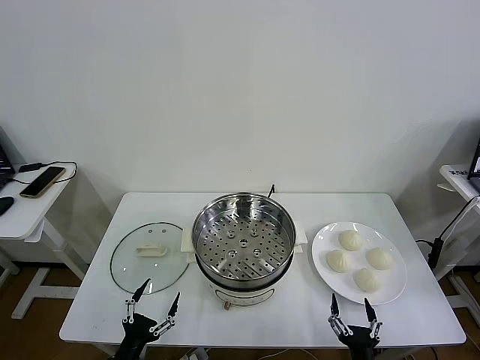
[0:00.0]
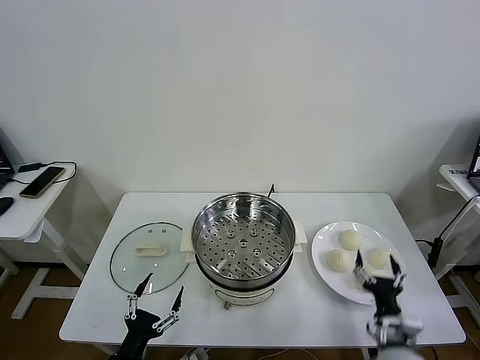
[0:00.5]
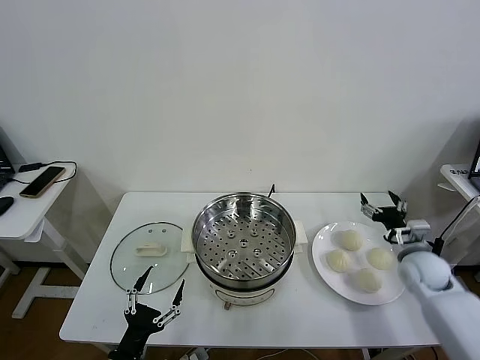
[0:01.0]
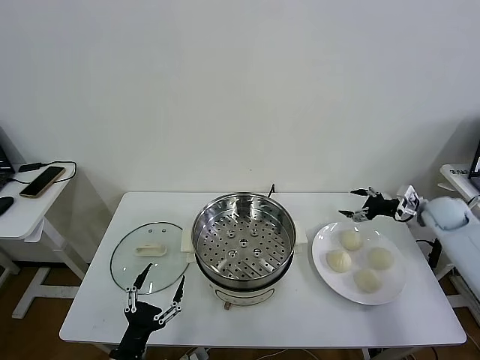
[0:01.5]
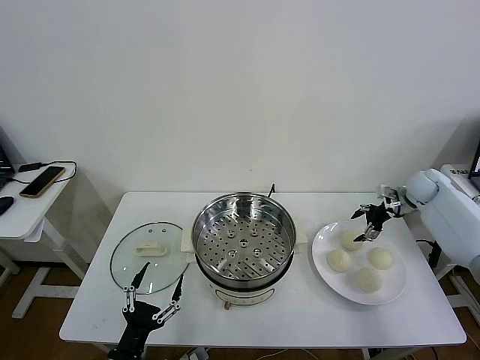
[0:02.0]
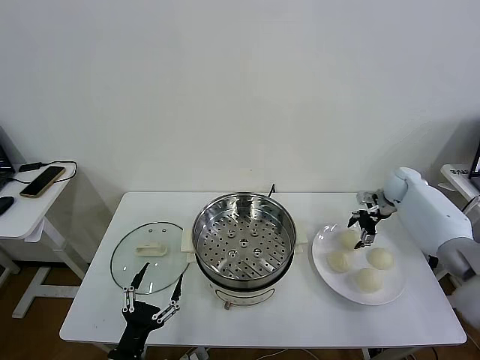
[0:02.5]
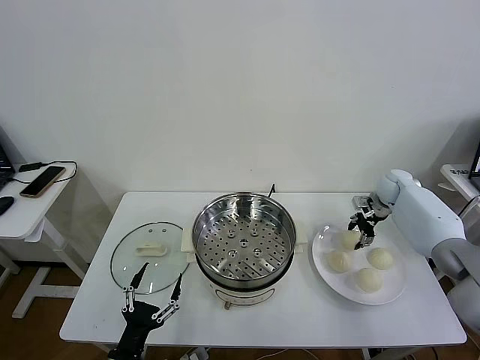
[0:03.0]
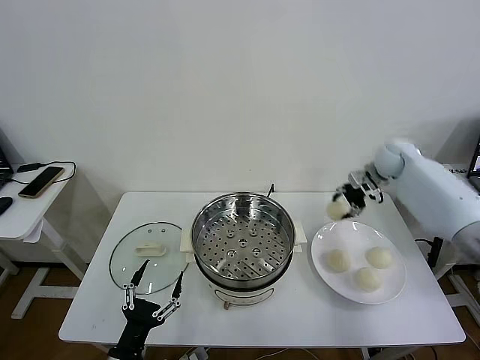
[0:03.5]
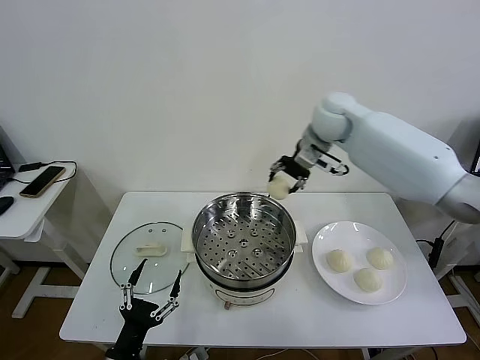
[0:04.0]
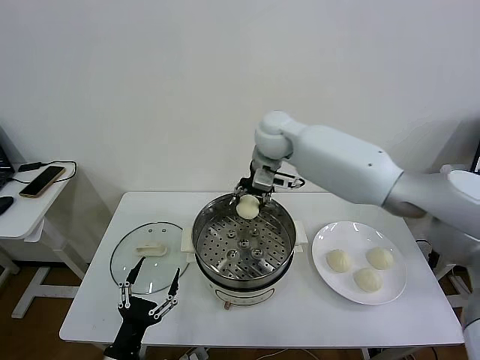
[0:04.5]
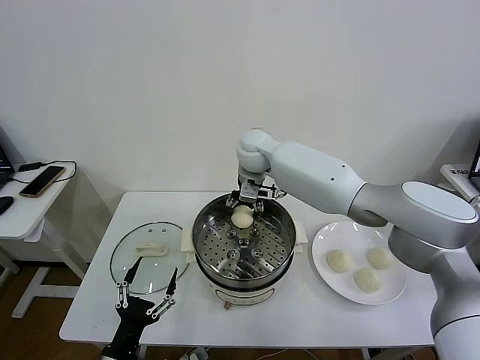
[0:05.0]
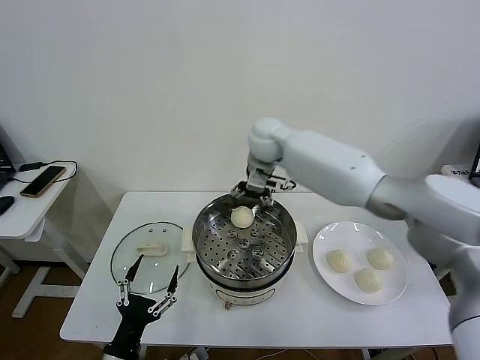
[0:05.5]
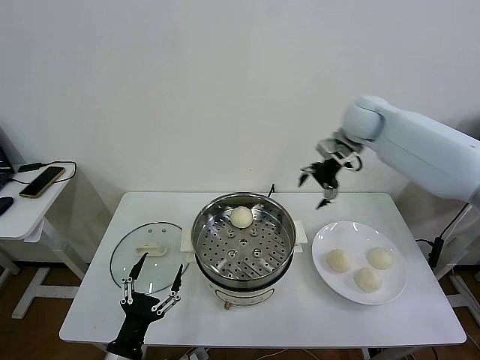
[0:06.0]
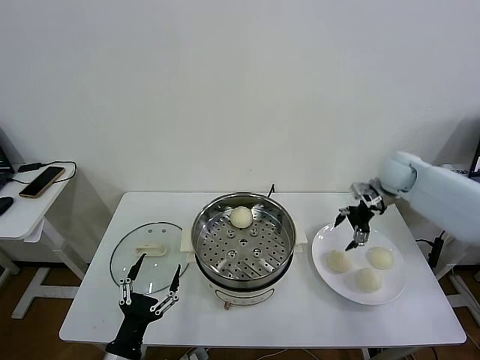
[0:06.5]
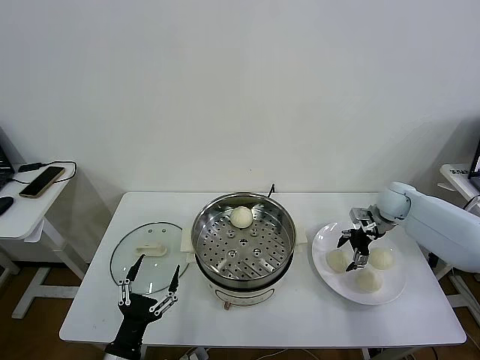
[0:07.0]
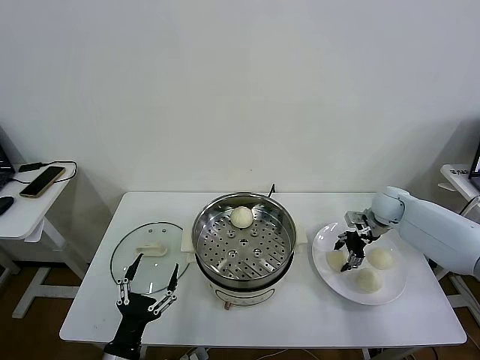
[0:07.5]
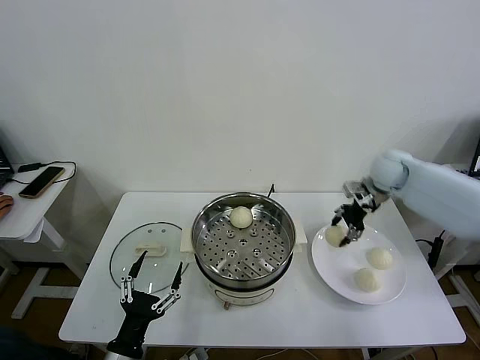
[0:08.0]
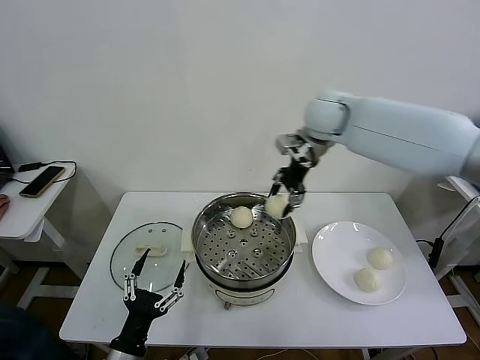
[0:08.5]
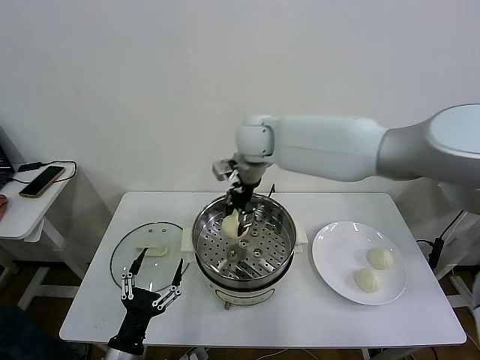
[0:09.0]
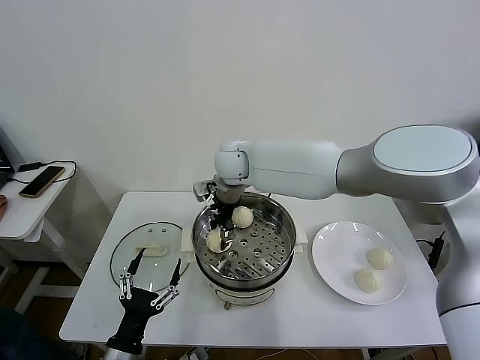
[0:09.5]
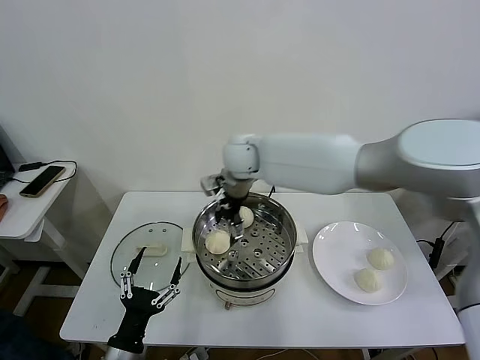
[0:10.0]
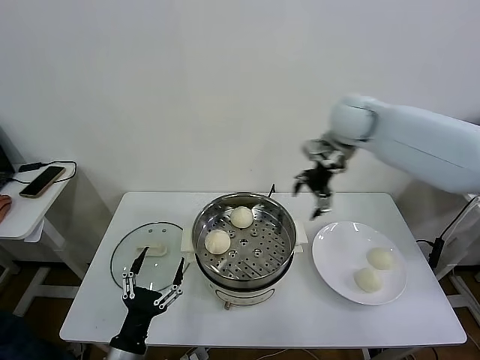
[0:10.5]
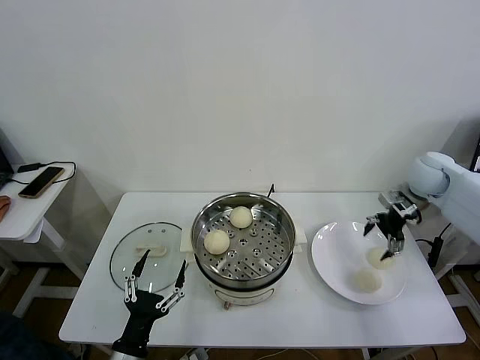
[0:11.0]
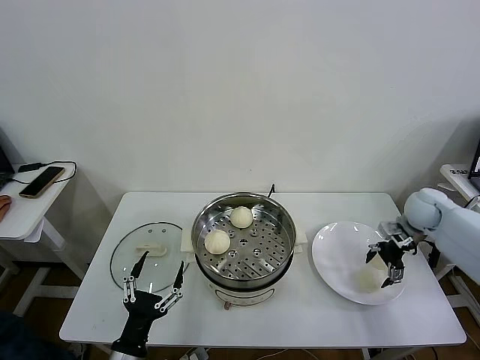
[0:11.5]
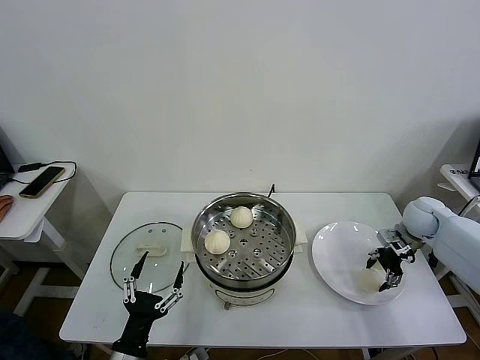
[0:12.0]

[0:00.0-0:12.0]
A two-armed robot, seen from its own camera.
Task of the whole recording: take steamed baozi put them in steamer then cover it.
Step, 0:00.0 to 0:03.0: Grasp the baozi in the plate with right gripper.
Step, 0:03.5 to 0:05.0: Place the baozi on the steamer with right gripper.
Step, 0:05.5 to 0:07.5: Grasp the baozi in the plate with right gripper.
Step, 0:08.0 to 0:09.5: Place the baozi on the steamer with right gripper.
0:02.0 to 0:04.0: The right gripper heads to the left and upward, covering about 35 cm, and closes its fingers.
0:04.0 to 0:06.0: The right gripper goes about 15 cm to the right, and opens.
0:06.0 to 0:08.0: The right gripper reaches some 20 cm downward, then returns, and closes its fingers.
0:08.0 to 0:10.0: The right gripper is displaced to the left by roughly 30 cm, and opens its fingers.
0:10.0 to 0:12.0: The right gripper travels to the right by roughly 40 cm, and closes up.

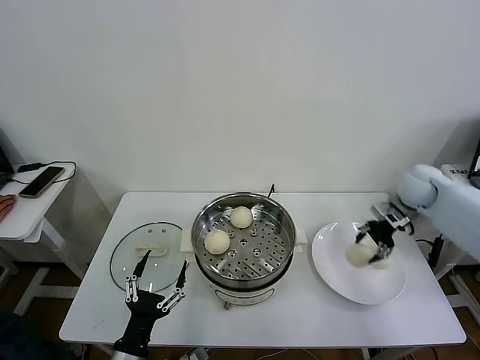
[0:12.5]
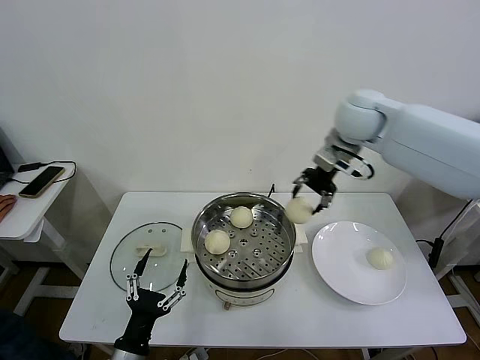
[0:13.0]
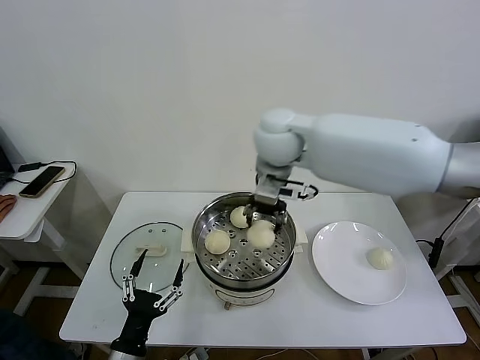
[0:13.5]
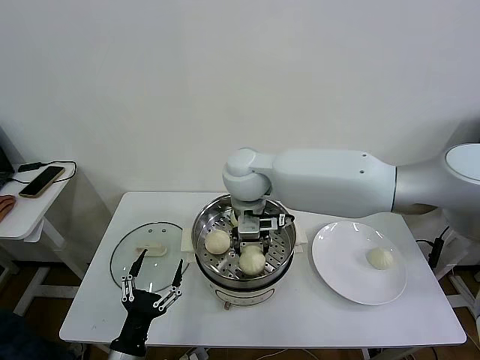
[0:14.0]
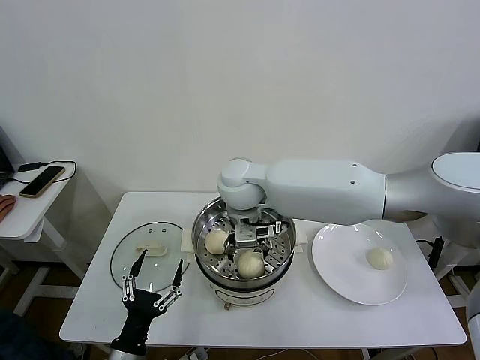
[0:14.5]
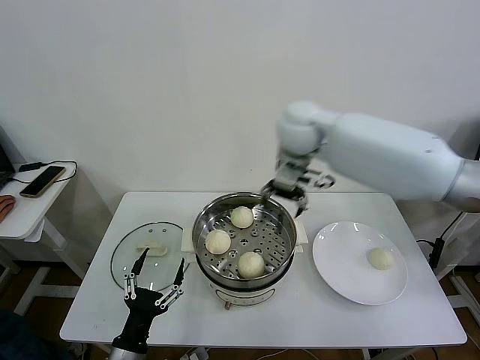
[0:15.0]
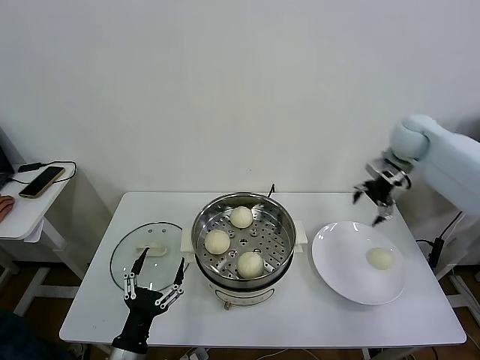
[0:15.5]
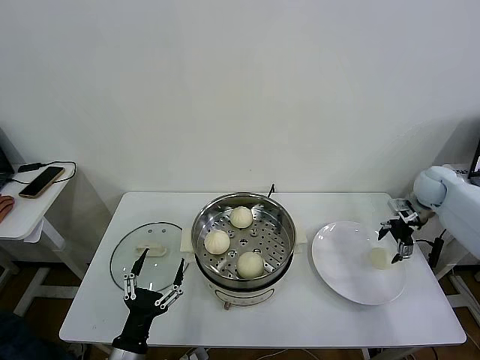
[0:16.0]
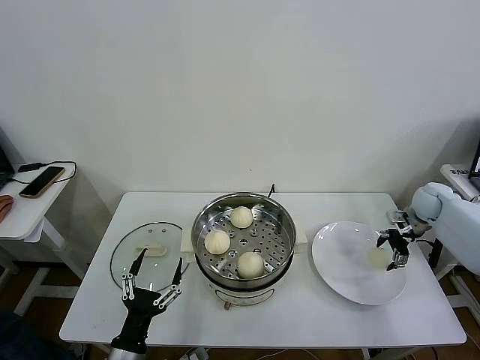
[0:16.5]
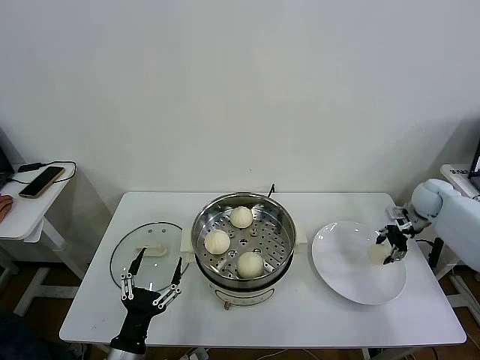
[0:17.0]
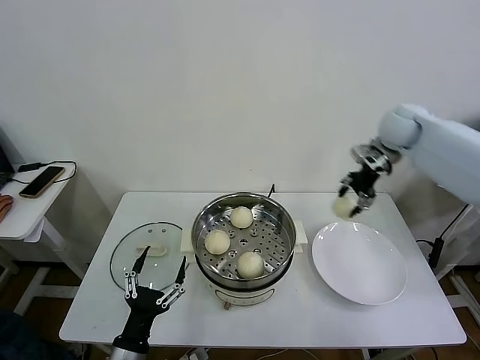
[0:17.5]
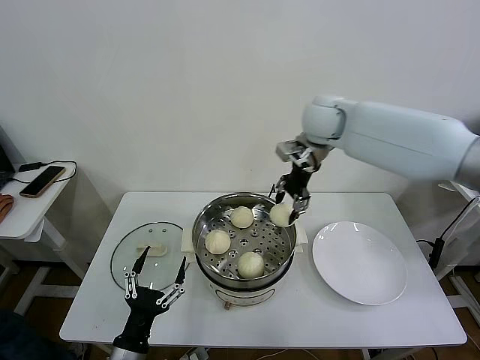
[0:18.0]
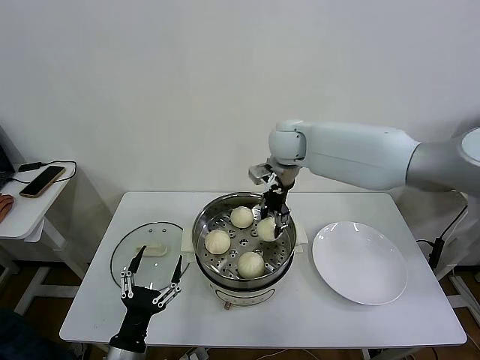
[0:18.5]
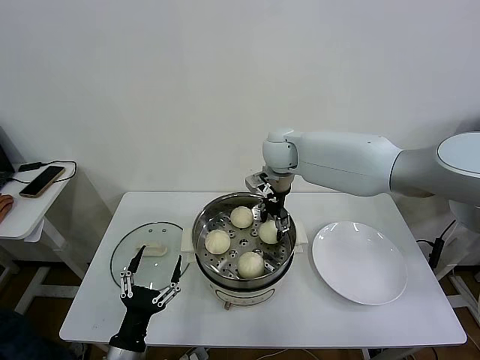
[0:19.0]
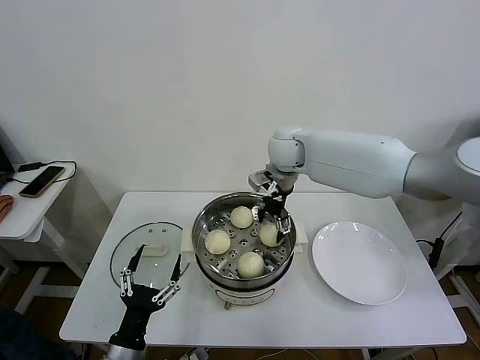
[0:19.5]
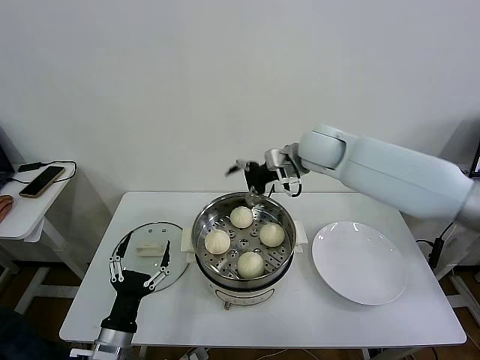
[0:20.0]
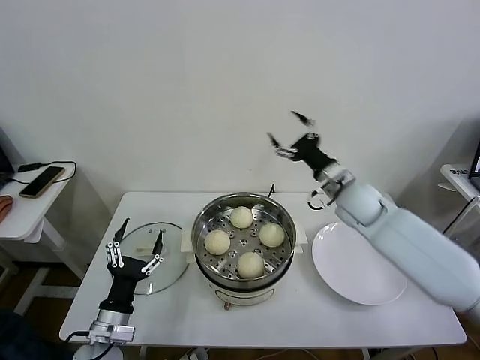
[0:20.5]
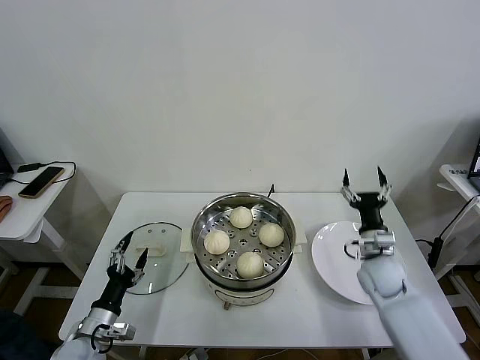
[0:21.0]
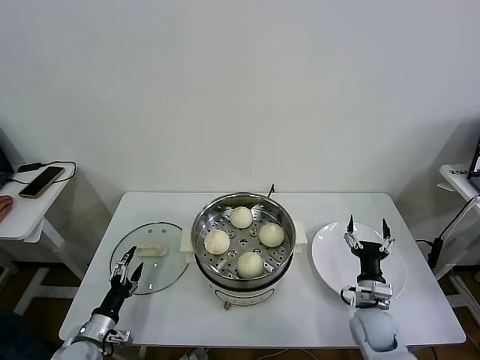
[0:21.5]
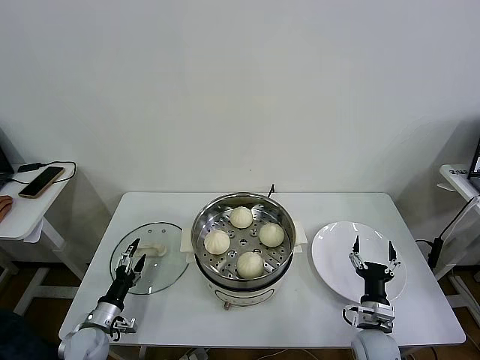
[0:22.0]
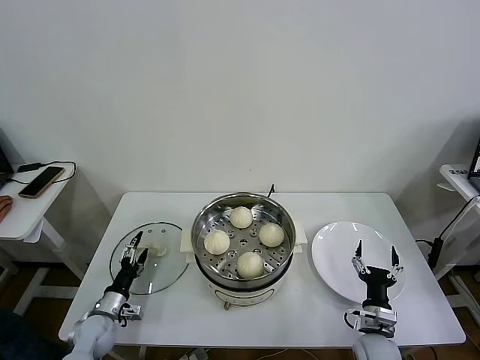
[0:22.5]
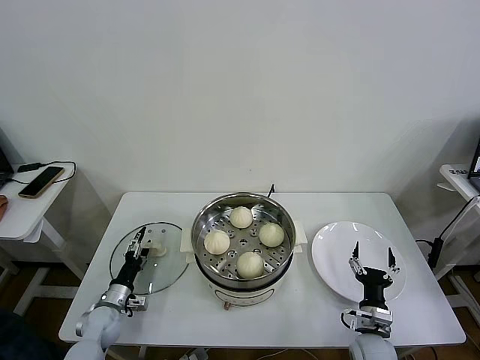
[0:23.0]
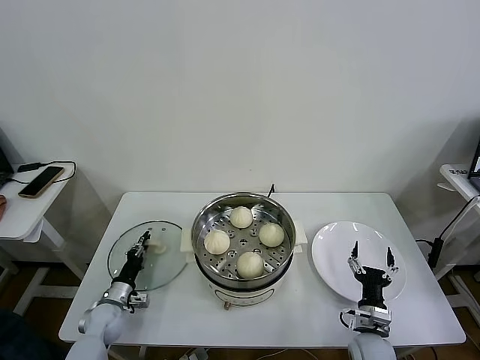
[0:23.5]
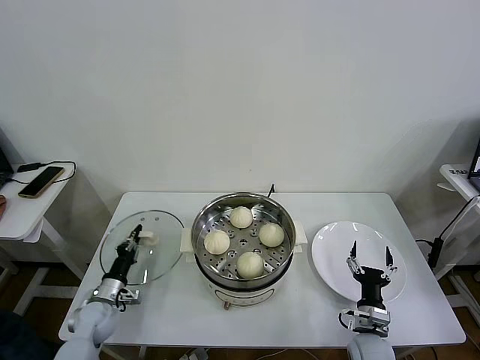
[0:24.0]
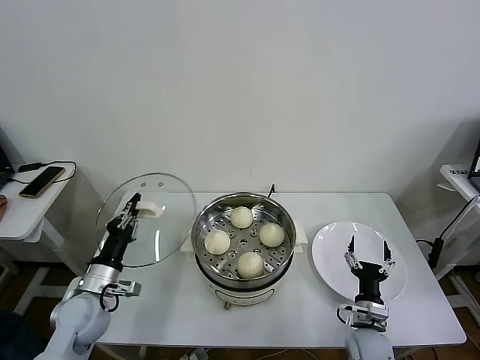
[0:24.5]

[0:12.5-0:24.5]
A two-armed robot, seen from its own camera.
Task of the whole recording: take steamed baozi put them in steamer then cover it.
Step, 0:12.5 to 0:14.0: Place the baozi on the steamer with right gripper.
Step, 0:14.5 to 0:16.5: Grasp the baozi in the plate with right gripper.
Step, 0:17.0 to 0:19.0: Place the baozi on the steamer with right gripper.
Step, 0:19.5 to 0:23.5: Grasp the pot lid with left gripper.
0:12.5 to 0:14.5: The right gripper goes some 40 cm to the left, and opens.
0:14.5 to 0:16.5: The right gripper goes some 50 cm to the right.
0:16.5 to 0:18.5: The right gripper goes about 40 cm to the left and upward, and closes up.
0:18.5 to 0:20.5: The left gripper moves forward, approximately 5 cm. The right gripper travels to the right, downward and backward by roughly 20 cm, and opens.
0:20.5 to 0:22.5: The left gripper heads downward, to the left and forward, covering some 20 cm; the right gripper moves downward and backward, approximately 35 cm.
0:22.5 to 0:24.5: The left gripper heads upward, covering some 15 cm, and closes.

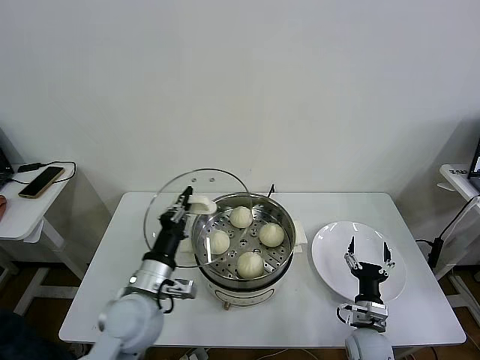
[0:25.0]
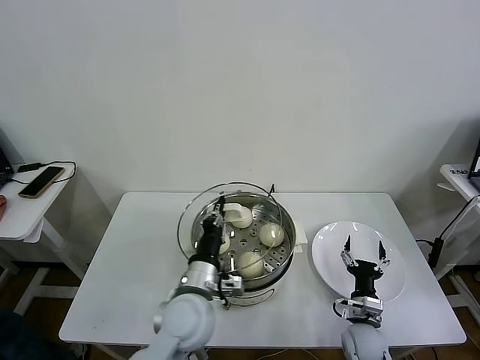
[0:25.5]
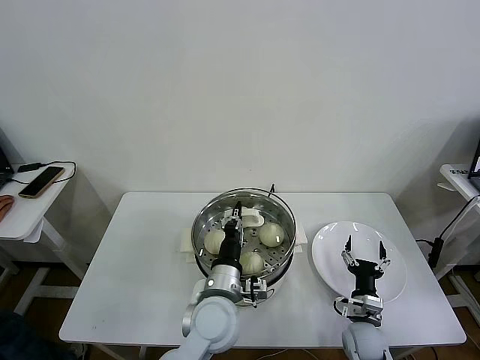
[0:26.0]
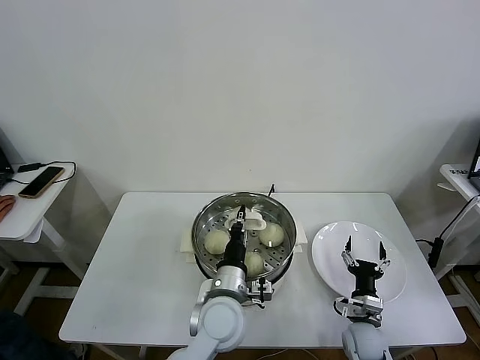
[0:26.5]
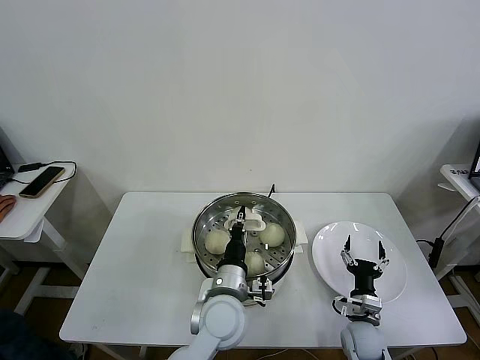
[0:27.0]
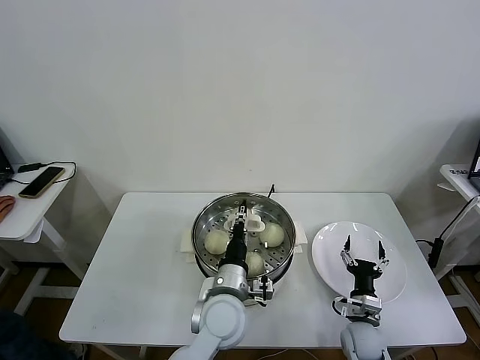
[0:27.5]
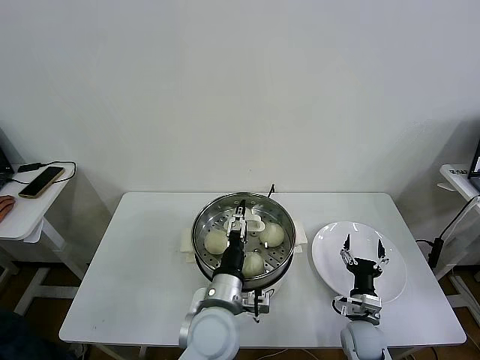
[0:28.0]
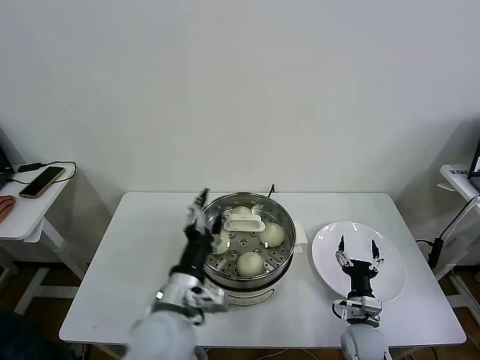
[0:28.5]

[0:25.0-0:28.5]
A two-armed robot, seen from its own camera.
Task of the whole recording: take steamed baozi put them in steamer then cover it.
Step, 0:25.0 to 0:27.5: Place the pot lid on the steamer with left gripper.
0:25.0 to 0:27.0: The left gripper heads to the right, covering about 15 cm.
0:27.0 to 0:28.5: The left gripper goes approximately 10 cm to the left, upward and backward, and opens.
